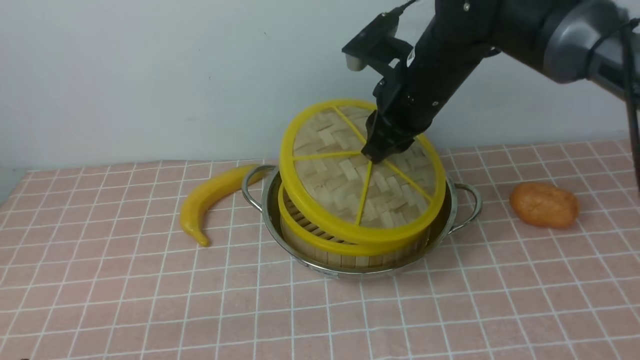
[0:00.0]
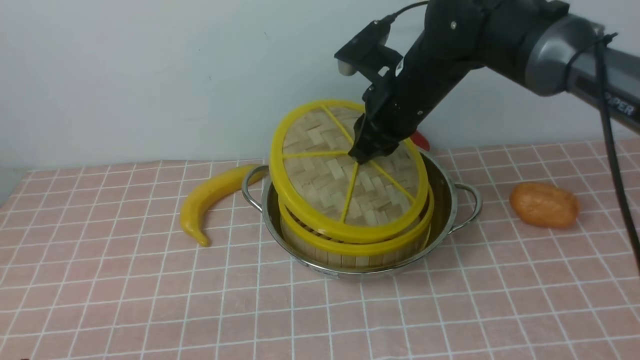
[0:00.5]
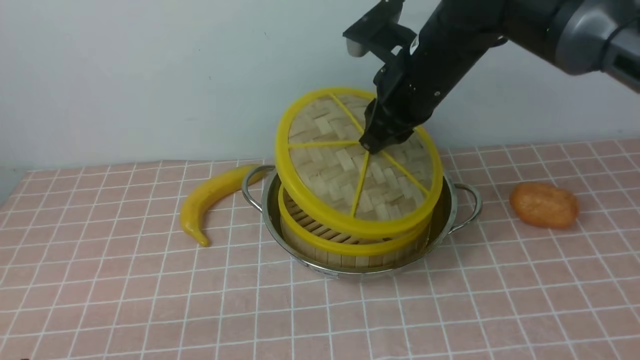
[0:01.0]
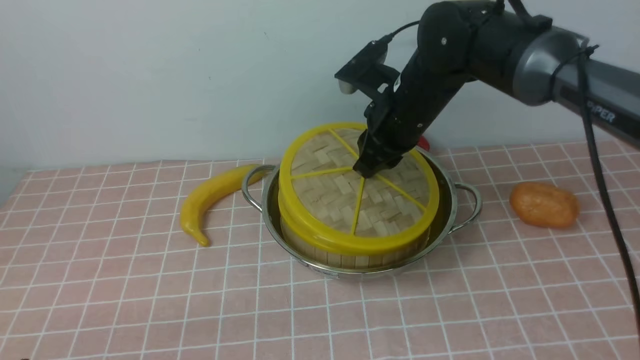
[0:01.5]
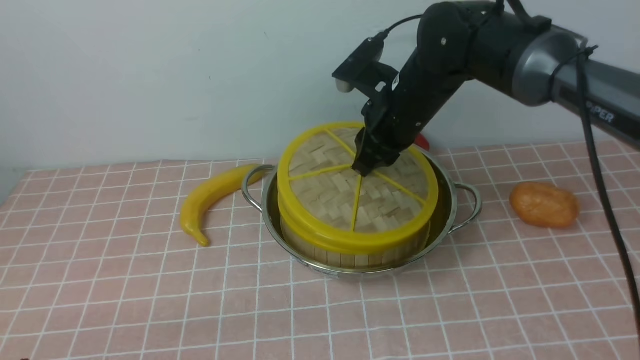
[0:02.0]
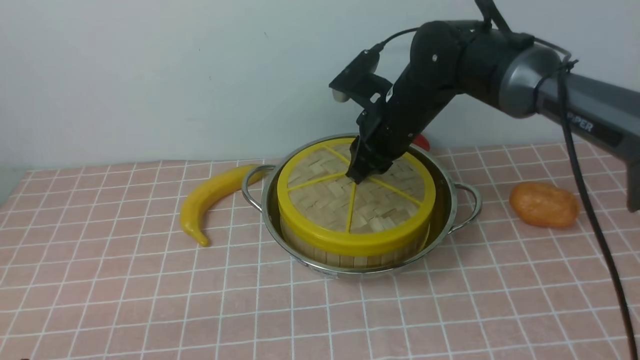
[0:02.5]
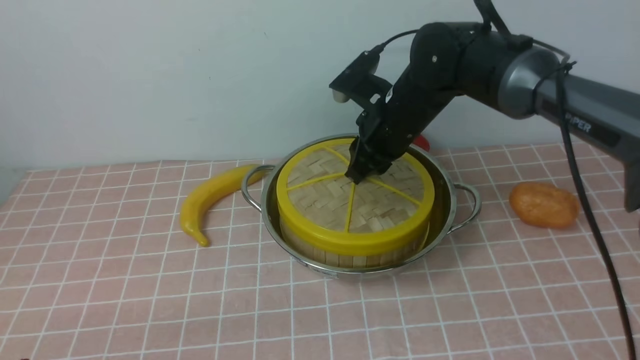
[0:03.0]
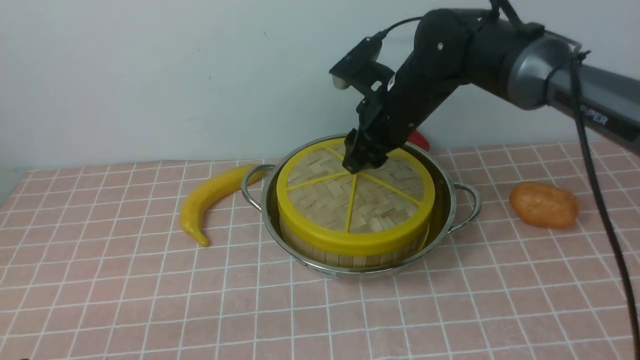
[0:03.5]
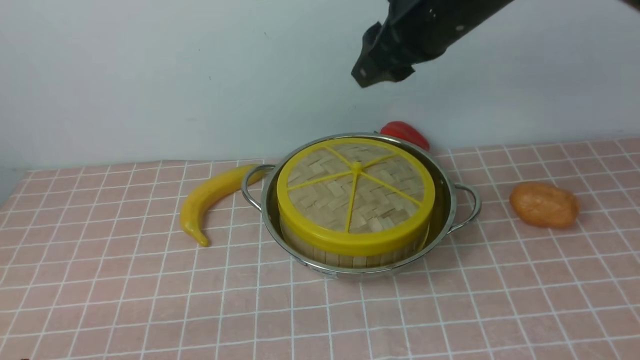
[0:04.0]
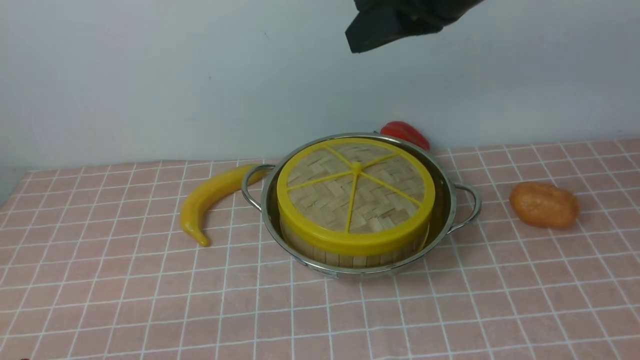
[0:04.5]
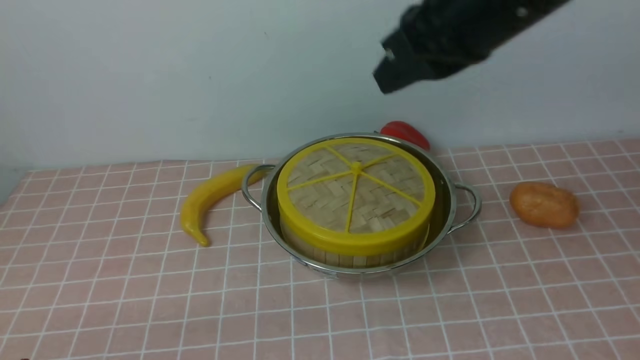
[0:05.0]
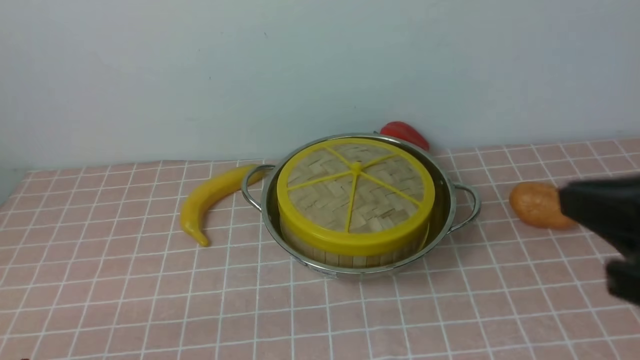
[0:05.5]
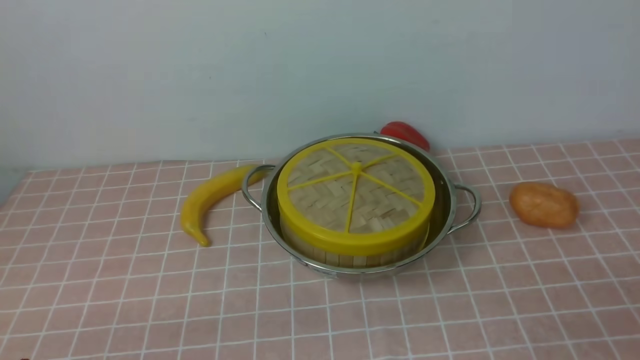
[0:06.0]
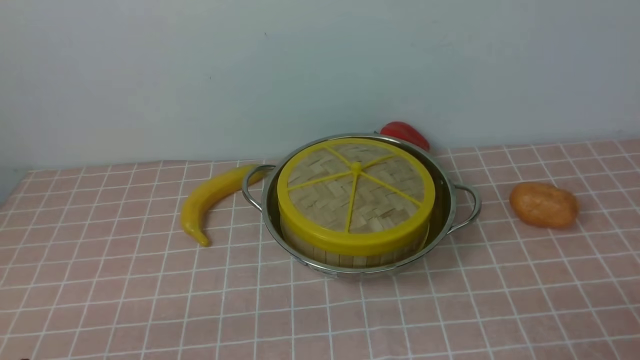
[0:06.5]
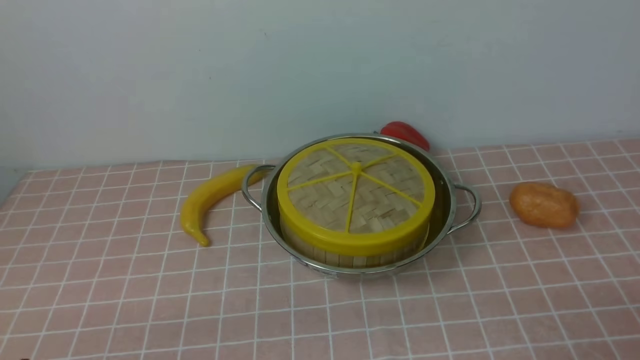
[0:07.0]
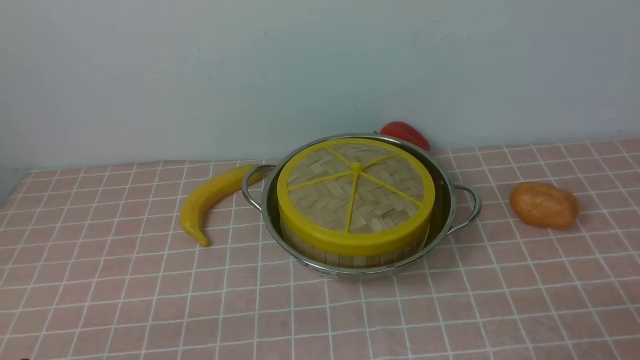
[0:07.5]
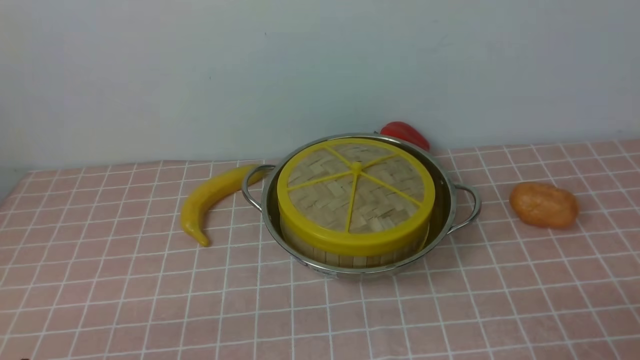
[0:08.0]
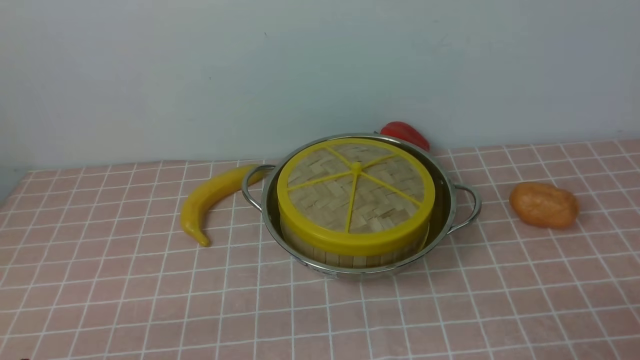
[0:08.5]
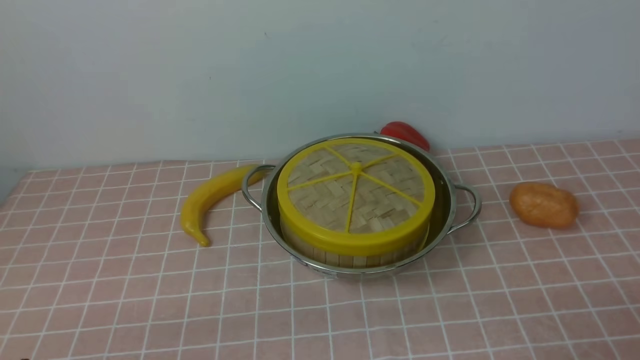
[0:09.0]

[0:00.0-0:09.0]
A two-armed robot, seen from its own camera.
Task of the whole recording: place the steamer in the pot on the pink tablecloth, and put the lid on the steamer.
Step, 0:00.0 to 0:03.5: use the right arm to place the steamer lid on the steamer.
0:00.0 to 0:02.0: The grippers move only a little.
0:02.0 to 0:04.5: The right gripper heads upward and backward, covering about 20 cm, and closes.
0:04.5 to 0:07.0: The right gripper shifts roughly 40 cm backward, downward and to the right, and opens.
0:07.0 to 0:09.0: The two grippers keep their place.
